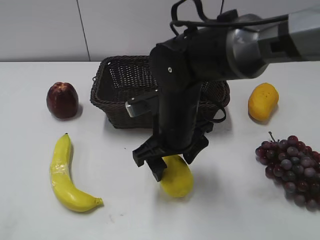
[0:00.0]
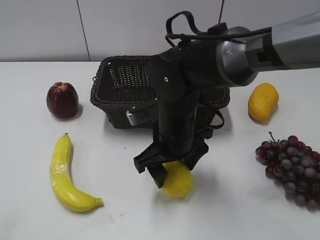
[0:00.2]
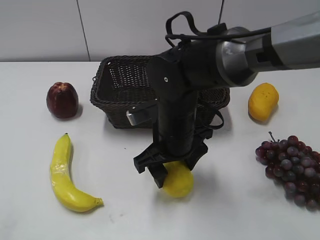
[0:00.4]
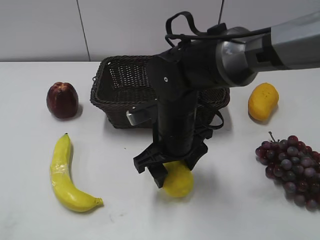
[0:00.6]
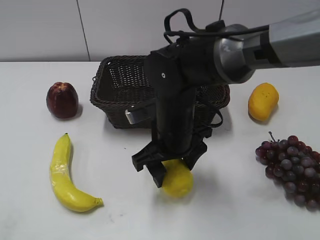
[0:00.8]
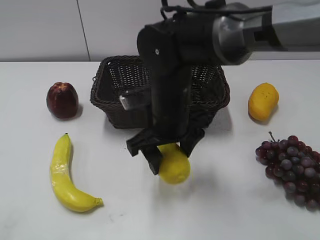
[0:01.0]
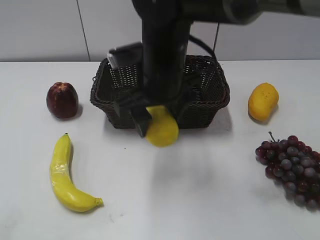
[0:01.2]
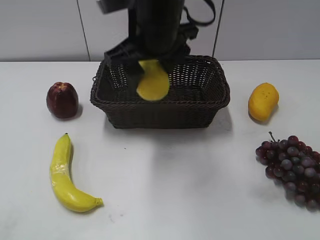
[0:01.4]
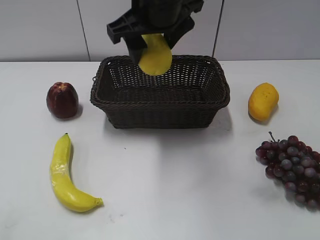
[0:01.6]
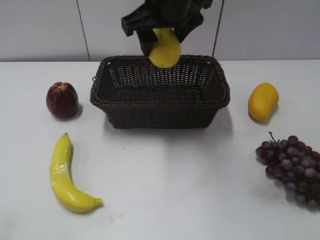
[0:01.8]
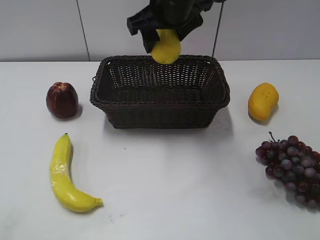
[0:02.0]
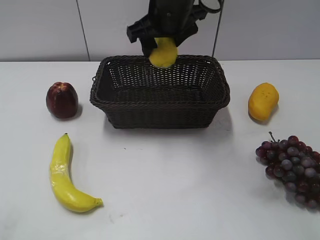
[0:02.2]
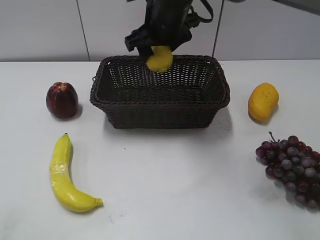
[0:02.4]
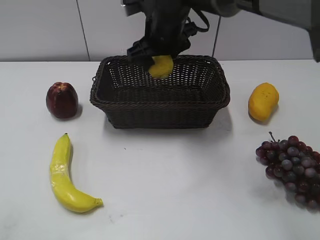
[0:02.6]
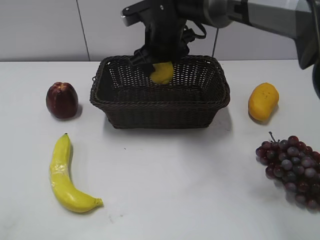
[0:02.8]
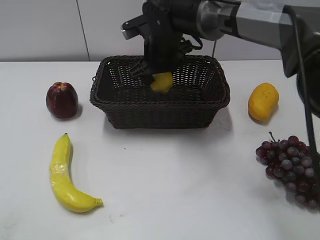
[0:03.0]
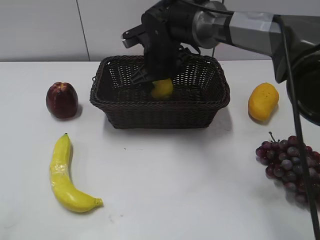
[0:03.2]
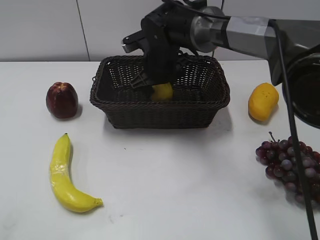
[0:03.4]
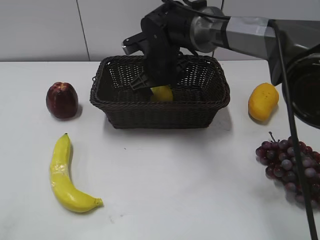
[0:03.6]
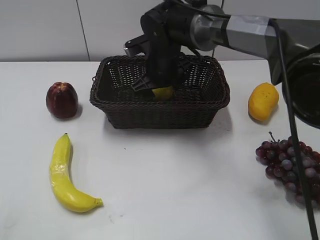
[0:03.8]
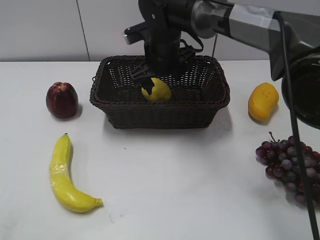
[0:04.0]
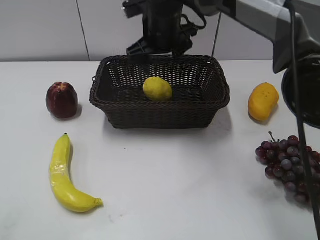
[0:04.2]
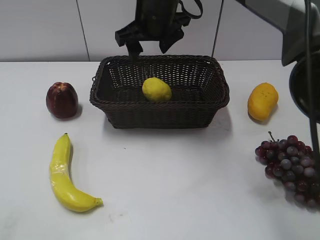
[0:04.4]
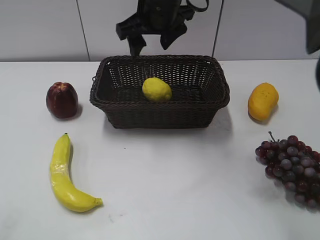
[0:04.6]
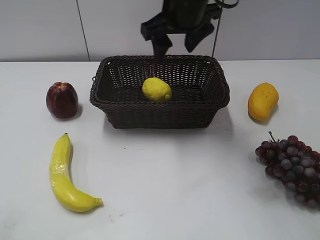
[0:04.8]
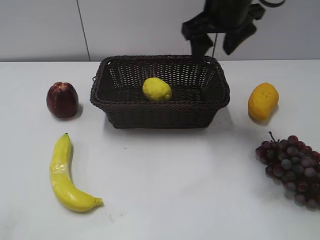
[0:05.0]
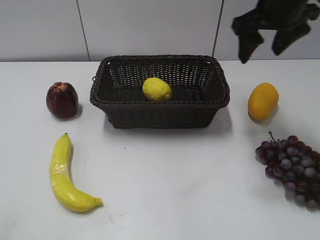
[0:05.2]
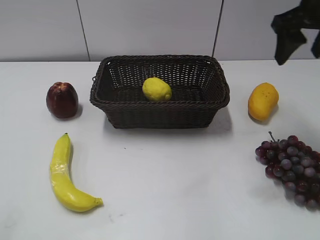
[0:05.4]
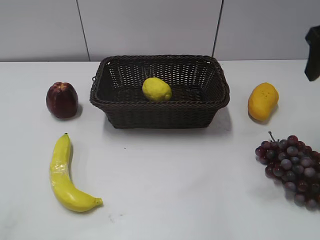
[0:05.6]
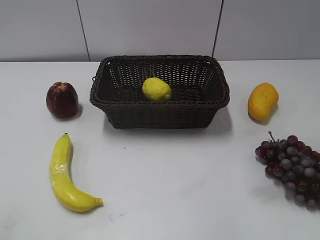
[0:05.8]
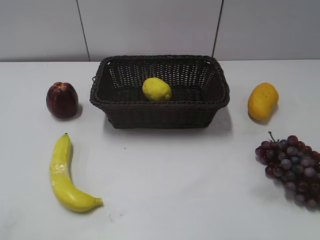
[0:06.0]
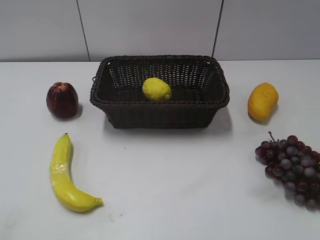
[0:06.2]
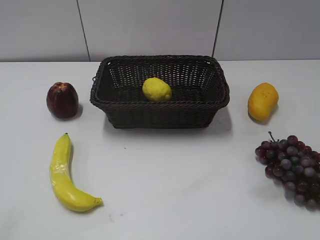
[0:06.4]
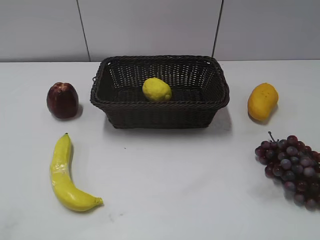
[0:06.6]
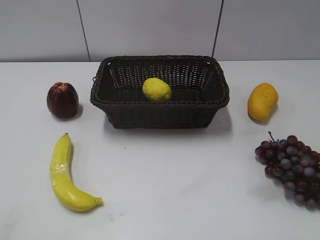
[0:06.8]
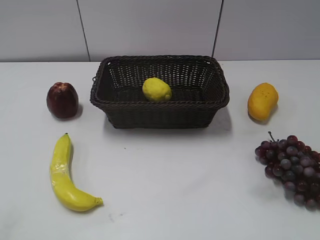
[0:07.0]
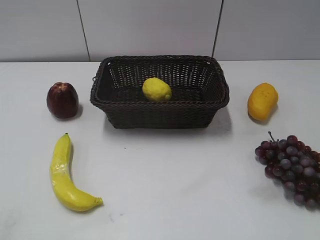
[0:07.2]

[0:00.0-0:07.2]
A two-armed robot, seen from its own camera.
Step, 0:01.0 to 0:03.8: Place the lemon in the basket with right gripper.
0:00.0 to 0:01.4: The right gripper shifts approximately 15 cm upward.
0:01.4 to 0:02.8: The right gripper is displaced forward and downward by some 15 cm.
0:02.8 to 0:04.4: The right gripper heads upward, covering some 5 cm.
0:04.4 to 0:05.8: The right gripper moves to the right and backward, roughly 35 cm.
